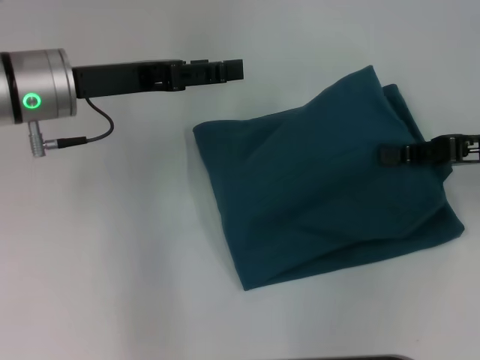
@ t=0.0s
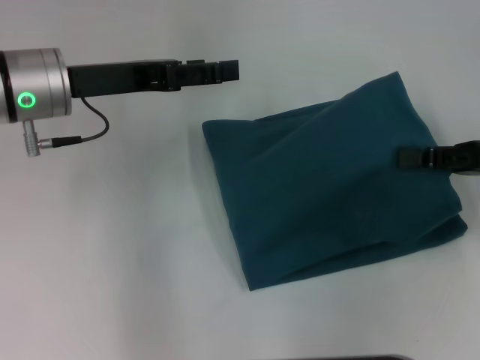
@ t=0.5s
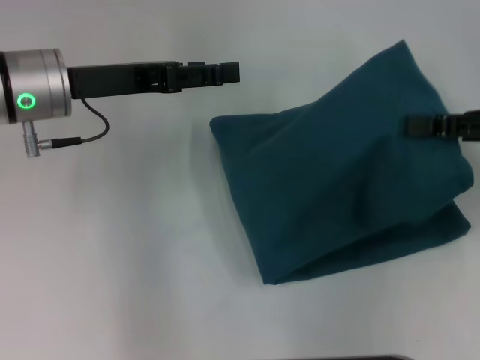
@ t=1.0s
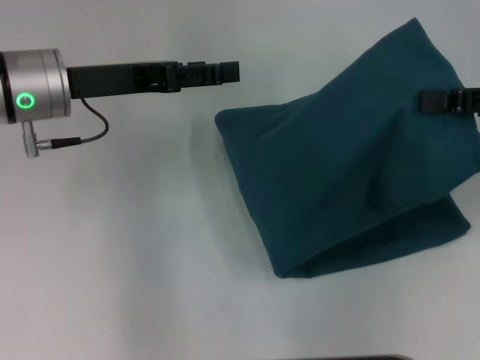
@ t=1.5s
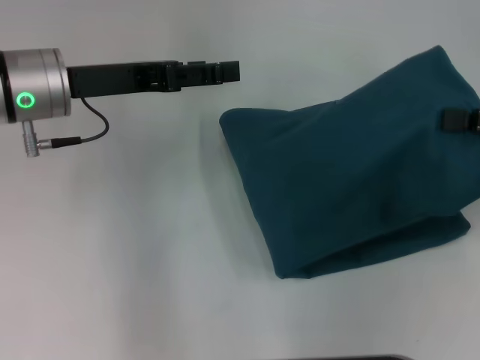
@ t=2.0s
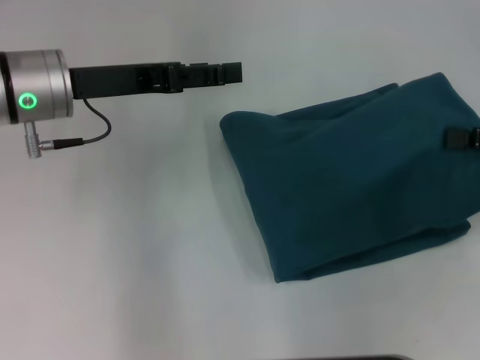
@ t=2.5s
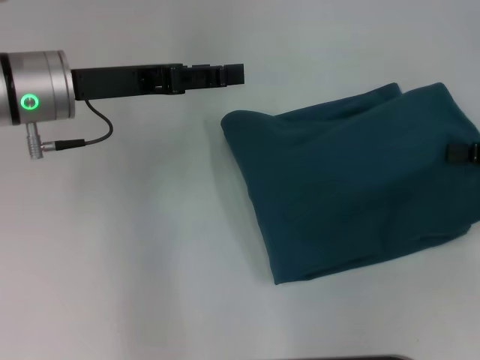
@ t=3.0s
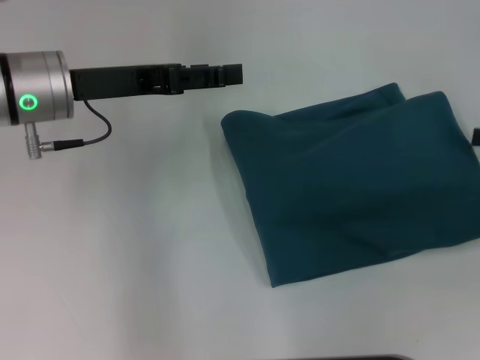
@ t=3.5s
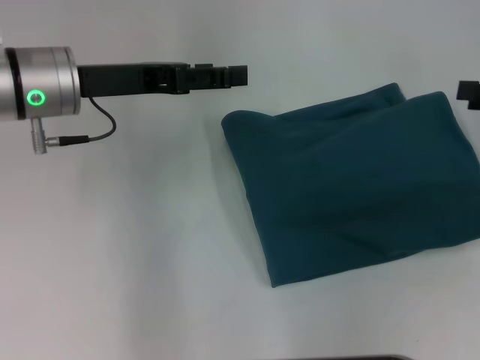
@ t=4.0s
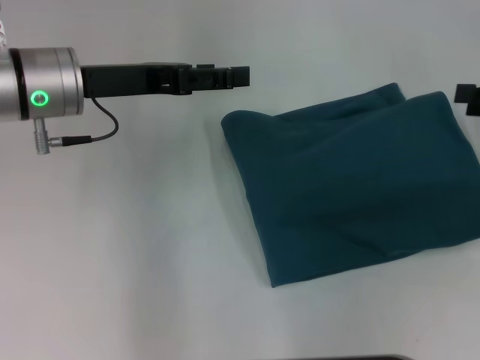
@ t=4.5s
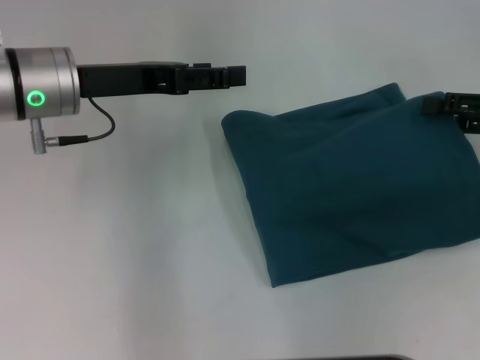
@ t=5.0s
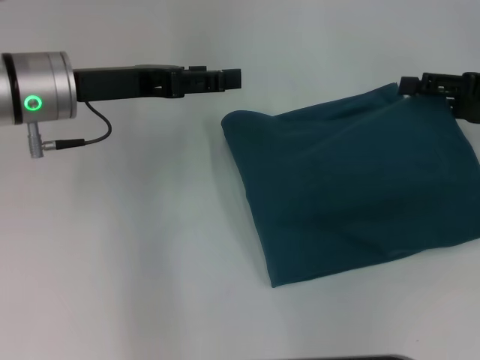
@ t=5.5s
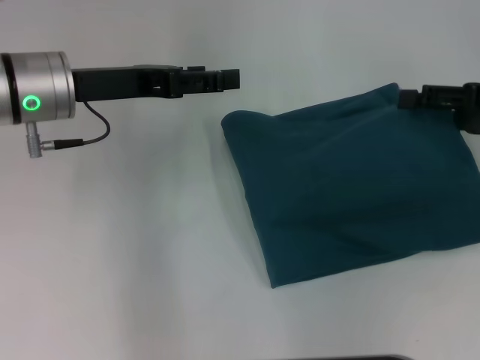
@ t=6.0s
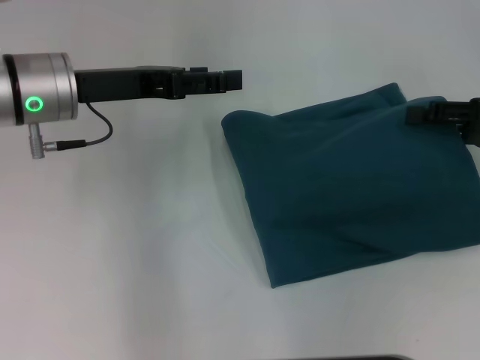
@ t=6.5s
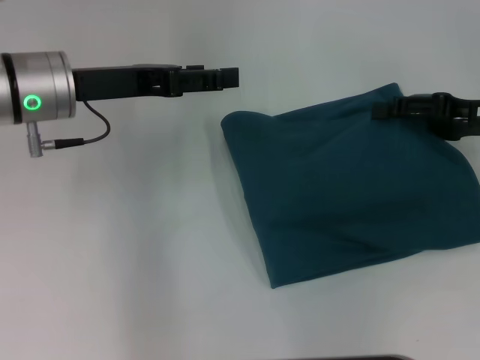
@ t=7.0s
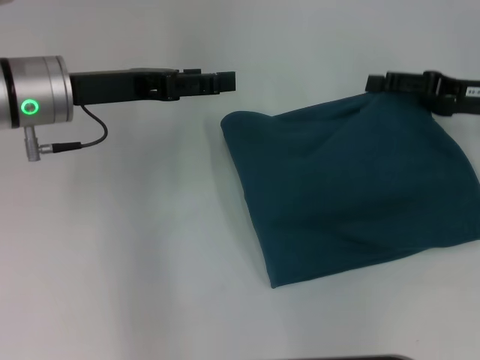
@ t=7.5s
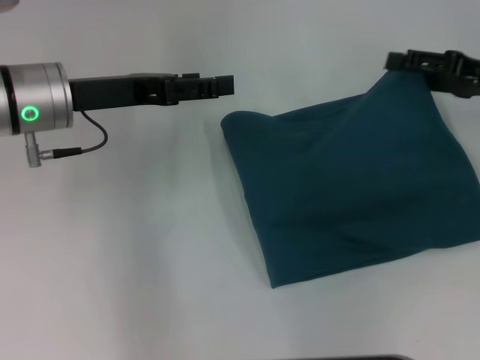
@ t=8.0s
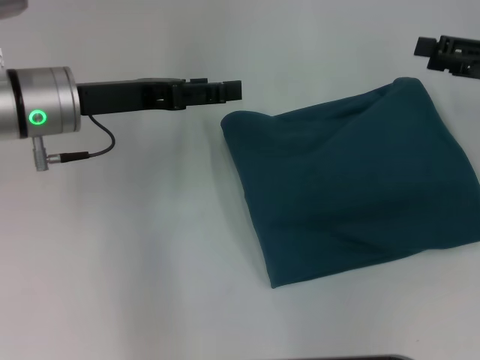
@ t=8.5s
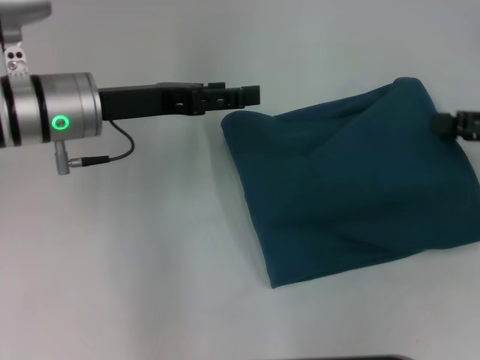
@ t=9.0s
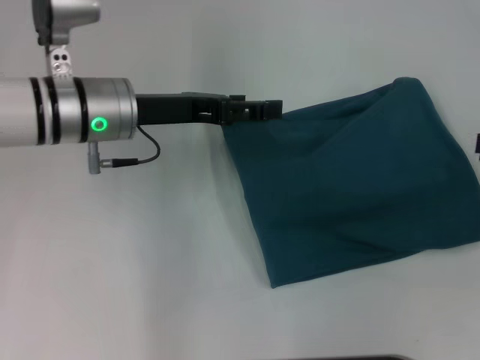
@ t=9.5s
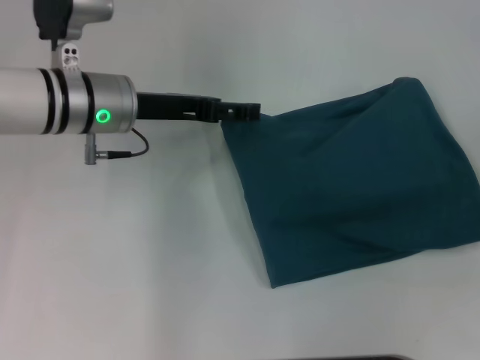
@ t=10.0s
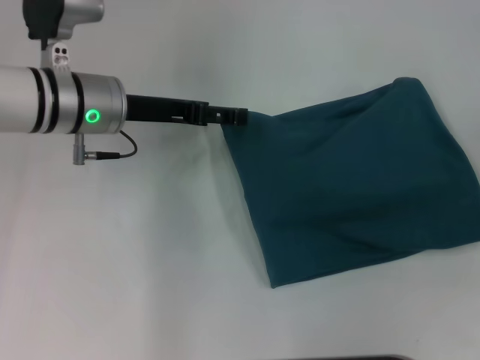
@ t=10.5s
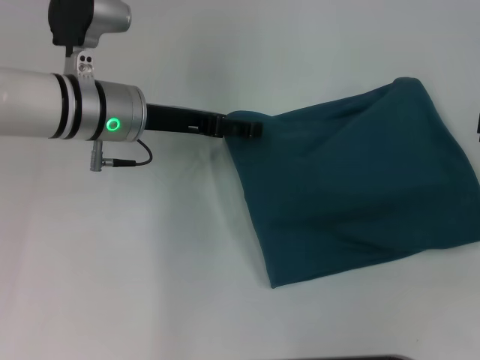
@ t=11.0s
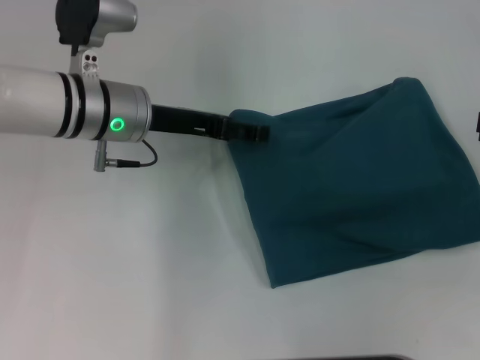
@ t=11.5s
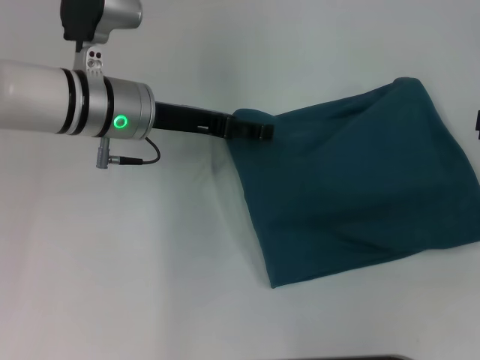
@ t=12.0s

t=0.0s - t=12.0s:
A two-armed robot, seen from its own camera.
t=0.0s - t=2.0s: The right gripper ends up some 5 cm from where it was.
t=2.0s - t=4.0s: The right gripper opens its fingers.
t=4.0s - t=6.0s: The right gripper ends up roughly 5 cm from where it was.
t=6.0s - t=8.0s: There are only small adjustments of the grippers.
t=8.0s - t=10.0s: The left gripper ends up roughly 5 cm from where it was, while the right gripper heads backward and to the right, covering roughly 10 cm.
t=10.0s - t=12.0s: There are only small adjustments of the grippers.

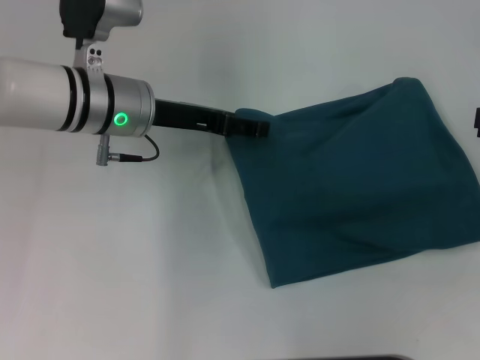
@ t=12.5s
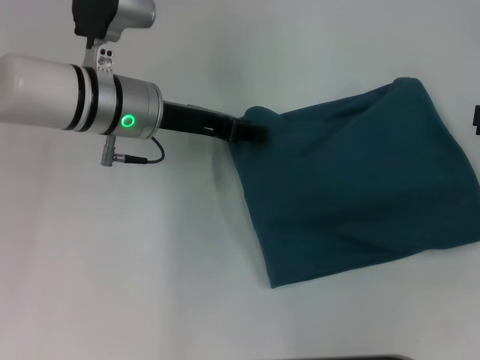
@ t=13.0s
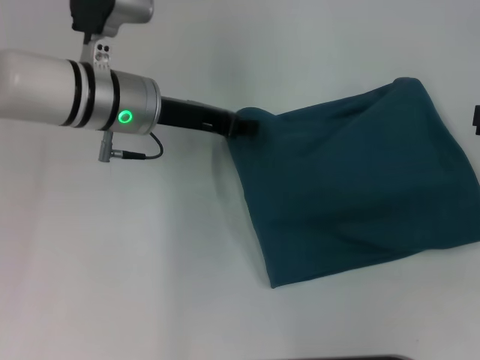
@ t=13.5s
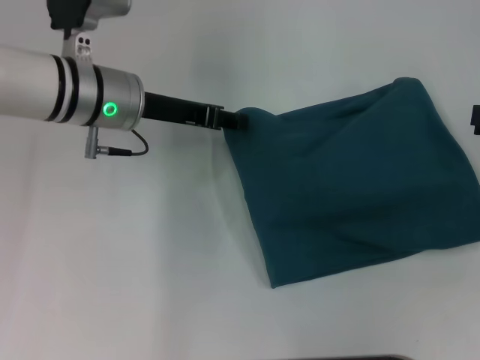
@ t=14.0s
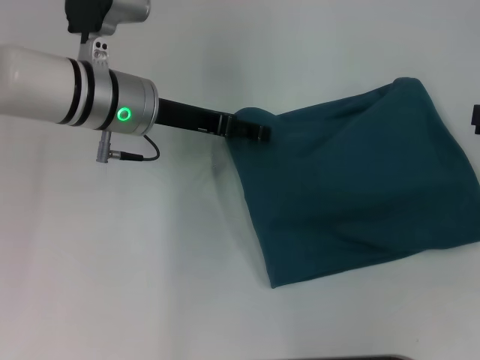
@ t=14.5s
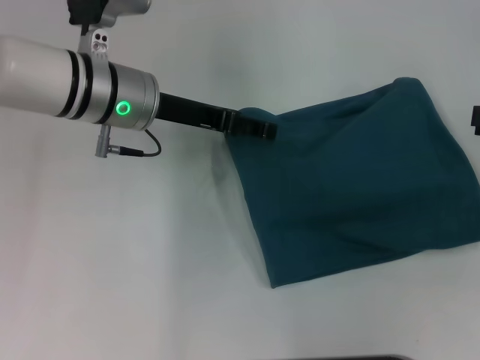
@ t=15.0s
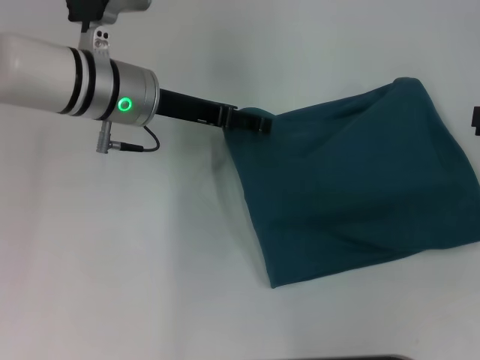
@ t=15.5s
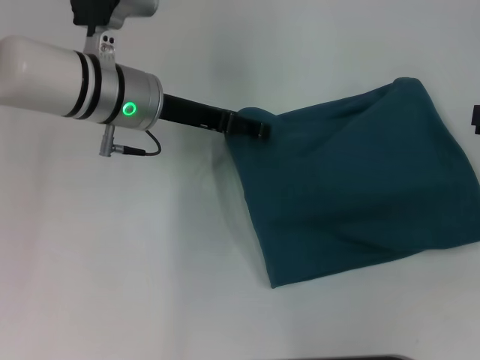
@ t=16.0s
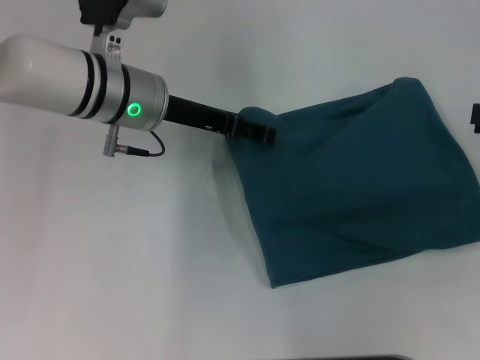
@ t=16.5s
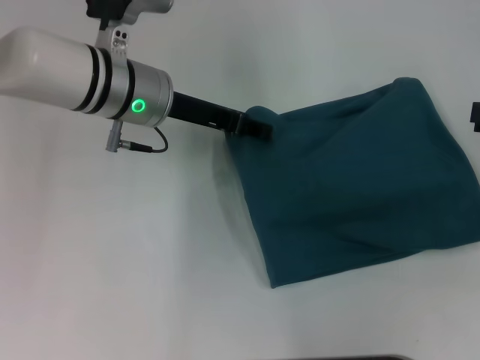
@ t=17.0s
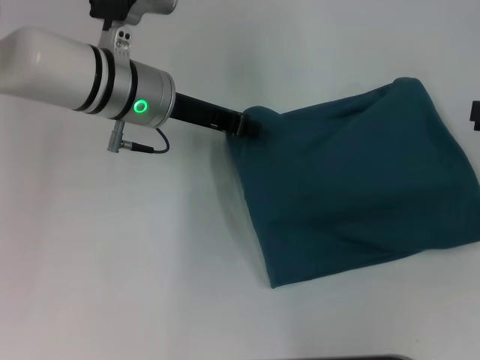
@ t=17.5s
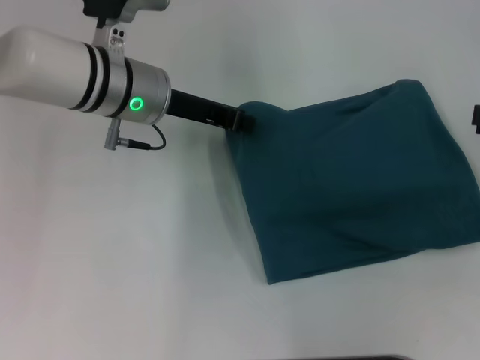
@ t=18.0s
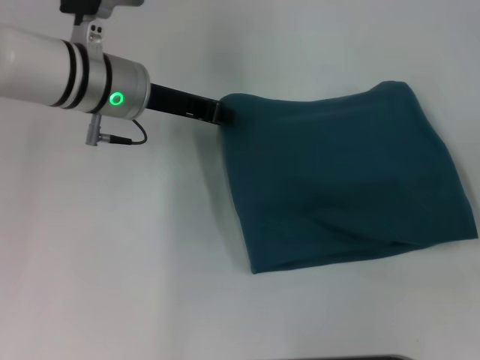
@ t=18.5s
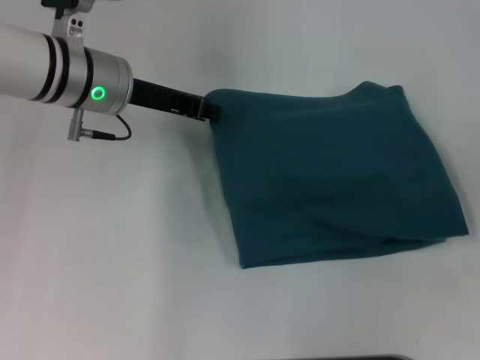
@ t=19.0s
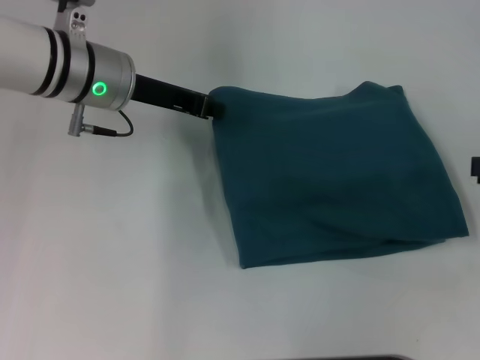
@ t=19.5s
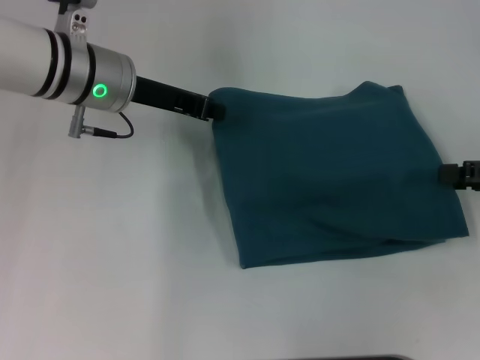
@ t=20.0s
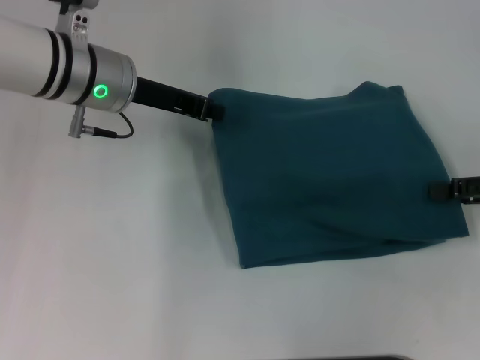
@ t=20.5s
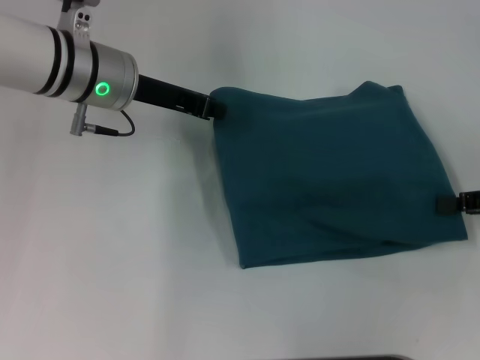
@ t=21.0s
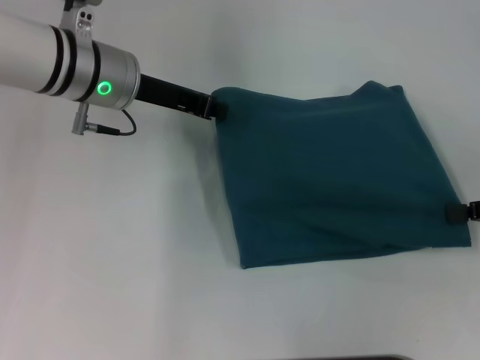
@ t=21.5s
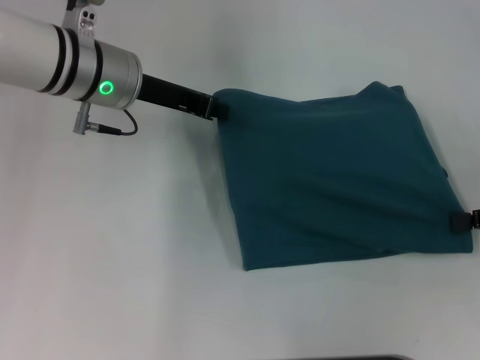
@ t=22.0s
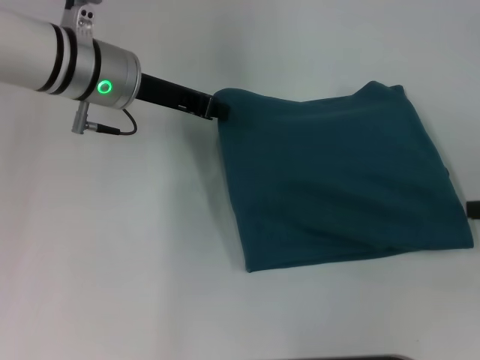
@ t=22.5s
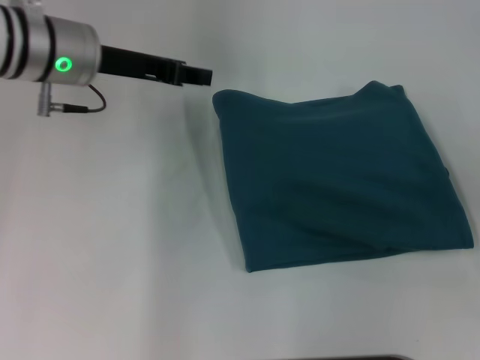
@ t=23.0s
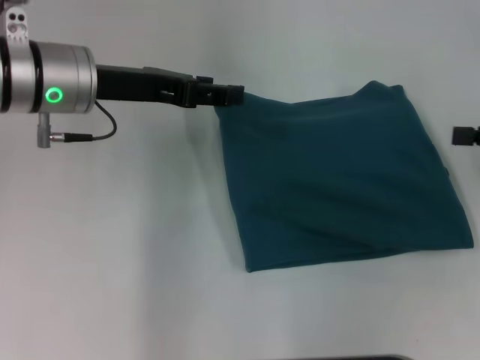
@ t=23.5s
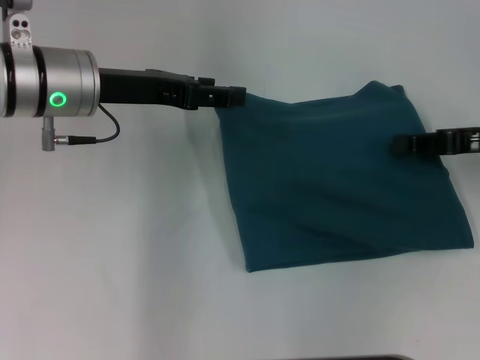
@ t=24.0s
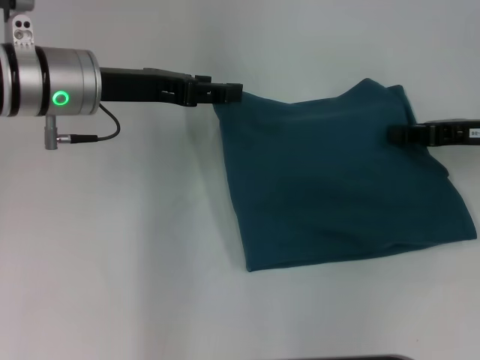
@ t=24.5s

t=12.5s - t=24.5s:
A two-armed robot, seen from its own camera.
t=12.5s - t=14.5s: The left gripper closes, then opens again.
t=14.5s - t=16.5s: Both grippers stay put.
t=16.5s - t=18.5s: The left gripper closes its fingers.
t=18.5s - t=20.5s: The right gripper ends up about 5 cm from where it was.
t=20.5s - t=22.5s: The right gripper closes.
t=22.5s - t=24.5s: The left gripper opens up, while the right gripper moves forward and to the left, approximately 10 cm, and opens and closes again.

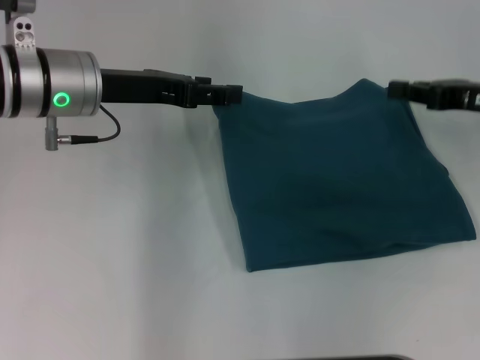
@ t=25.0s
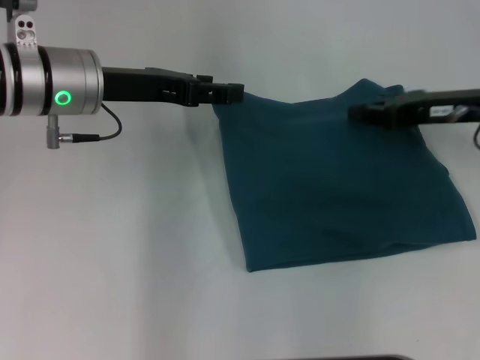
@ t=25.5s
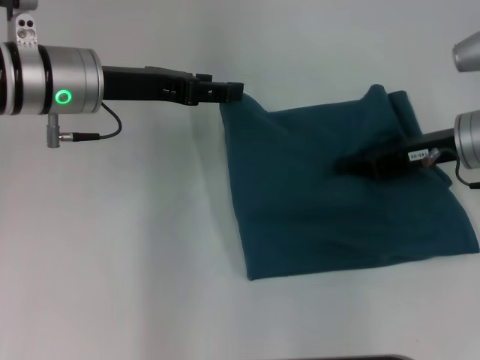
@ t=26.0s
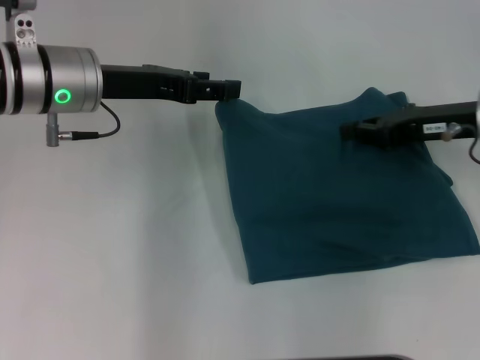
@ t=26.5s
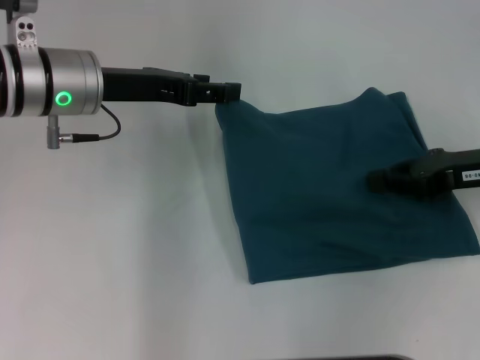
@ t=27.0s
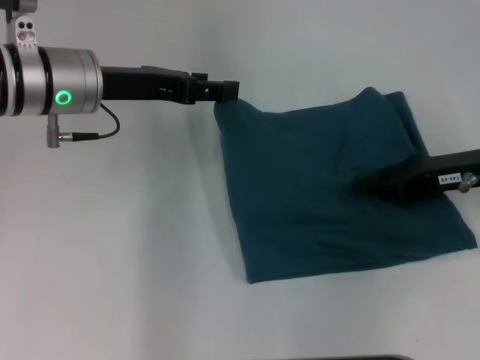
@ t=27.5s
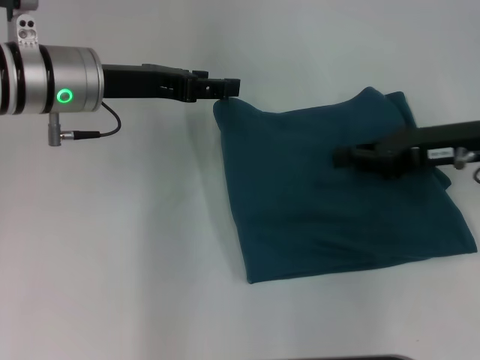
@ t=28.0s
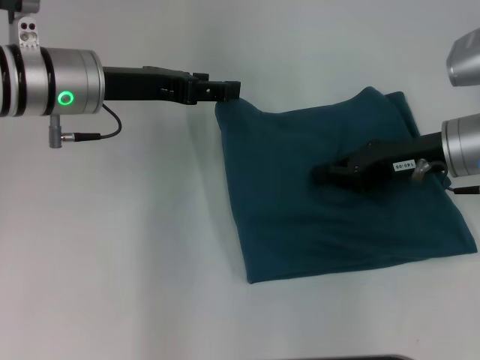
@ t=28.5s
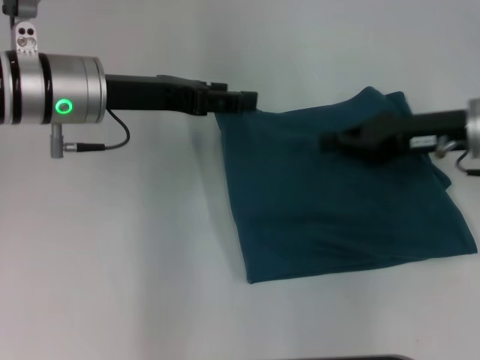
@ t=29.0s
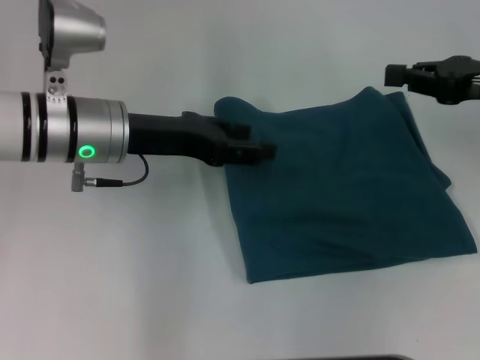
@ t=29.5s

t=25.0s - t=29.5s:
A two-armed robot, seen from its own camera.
t=27.0s - t=29.5s: The right gripper ends up some 5 cm from where it was.
